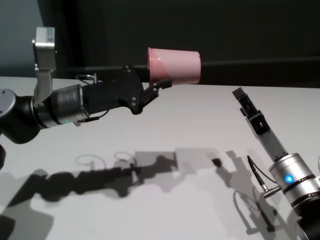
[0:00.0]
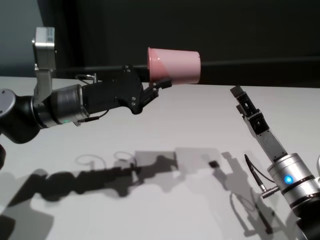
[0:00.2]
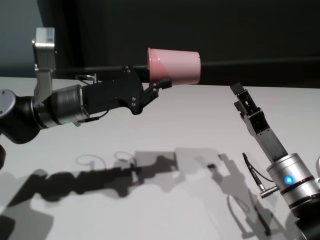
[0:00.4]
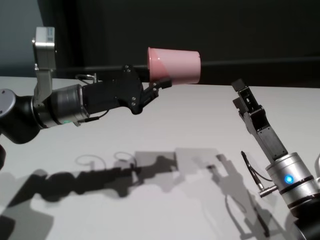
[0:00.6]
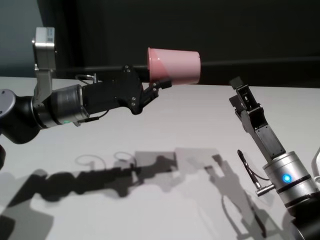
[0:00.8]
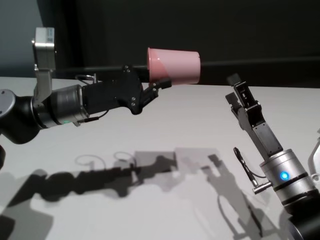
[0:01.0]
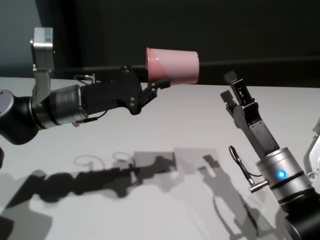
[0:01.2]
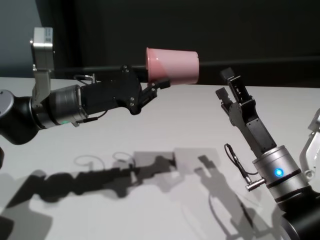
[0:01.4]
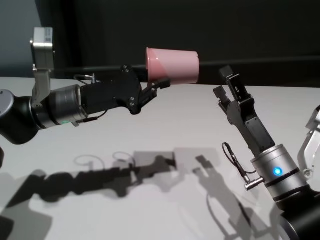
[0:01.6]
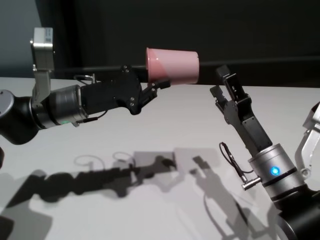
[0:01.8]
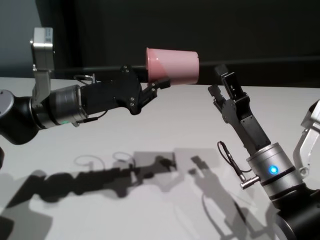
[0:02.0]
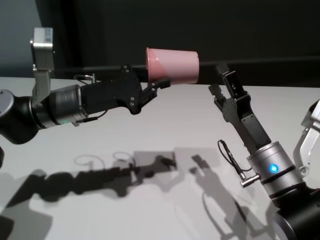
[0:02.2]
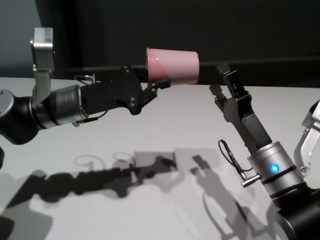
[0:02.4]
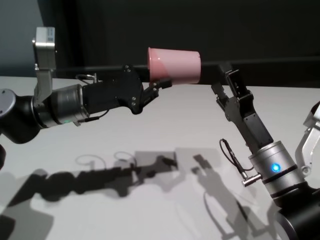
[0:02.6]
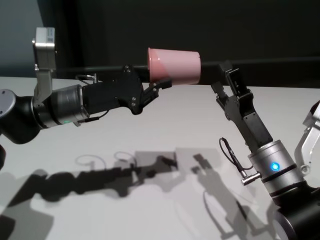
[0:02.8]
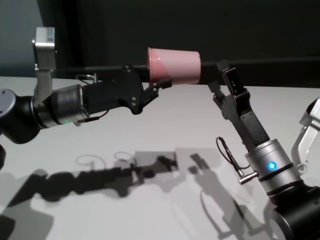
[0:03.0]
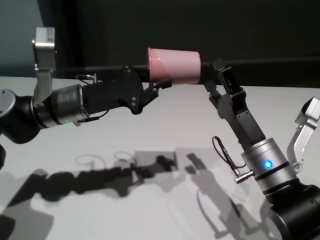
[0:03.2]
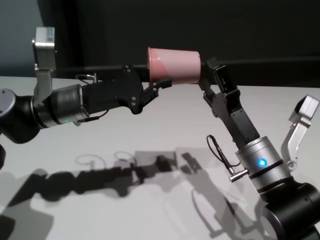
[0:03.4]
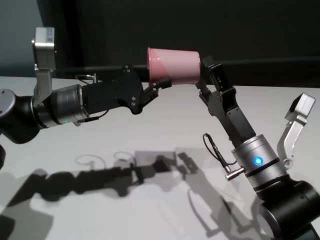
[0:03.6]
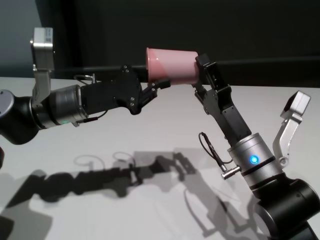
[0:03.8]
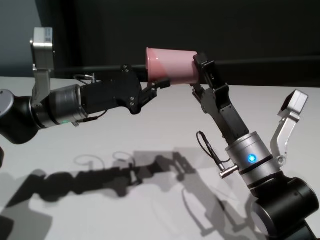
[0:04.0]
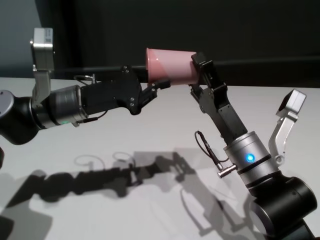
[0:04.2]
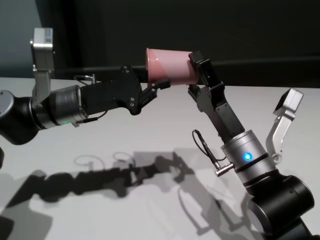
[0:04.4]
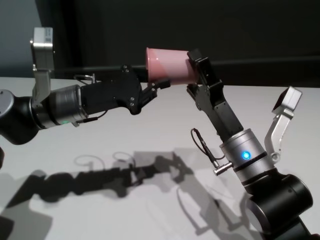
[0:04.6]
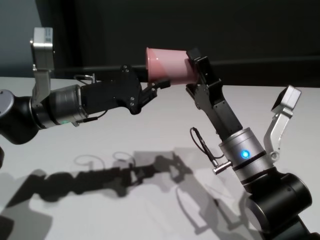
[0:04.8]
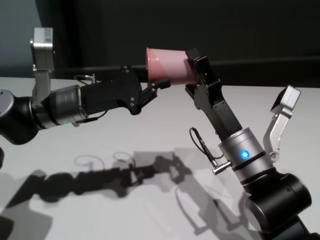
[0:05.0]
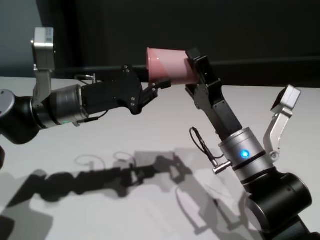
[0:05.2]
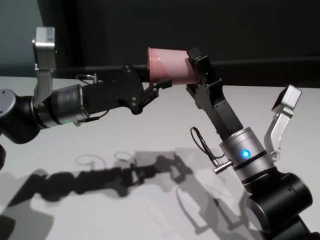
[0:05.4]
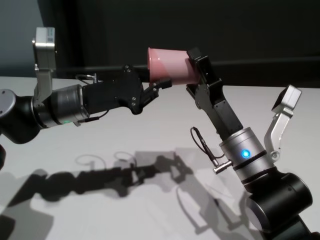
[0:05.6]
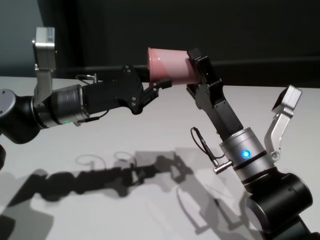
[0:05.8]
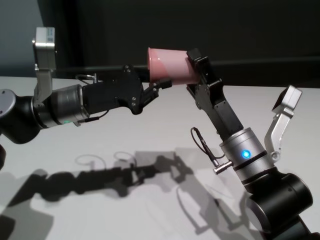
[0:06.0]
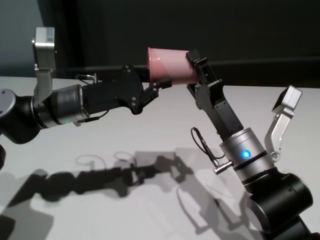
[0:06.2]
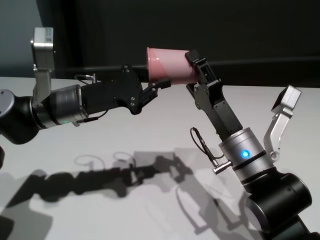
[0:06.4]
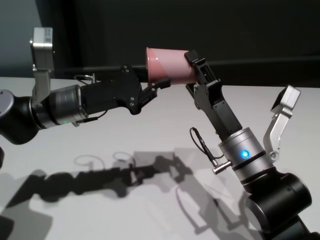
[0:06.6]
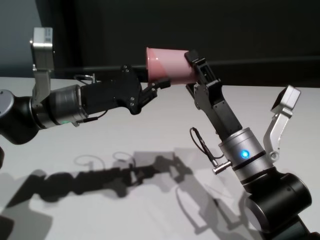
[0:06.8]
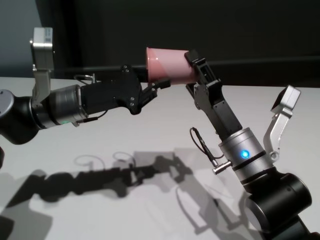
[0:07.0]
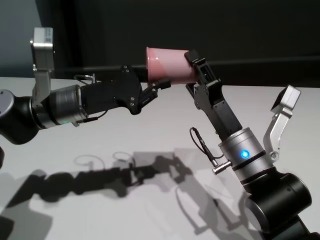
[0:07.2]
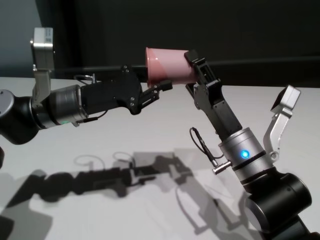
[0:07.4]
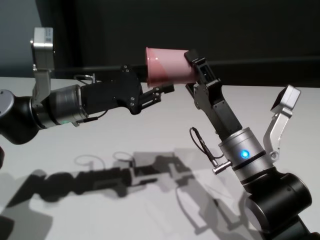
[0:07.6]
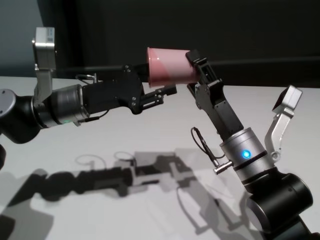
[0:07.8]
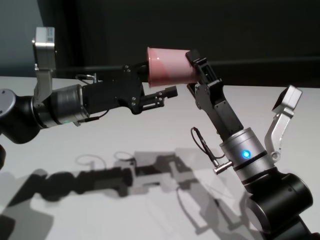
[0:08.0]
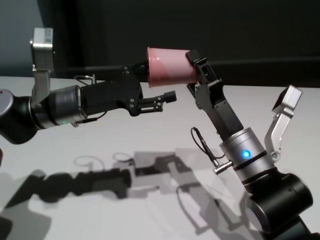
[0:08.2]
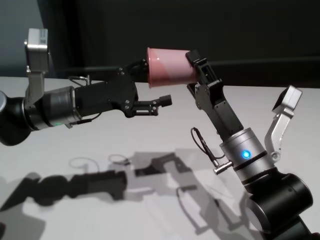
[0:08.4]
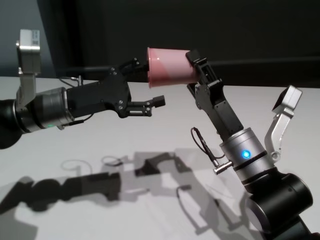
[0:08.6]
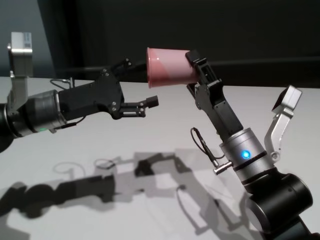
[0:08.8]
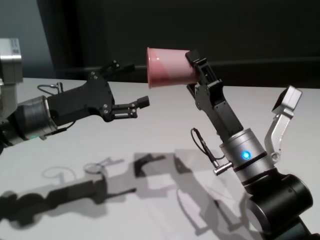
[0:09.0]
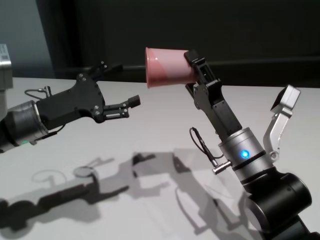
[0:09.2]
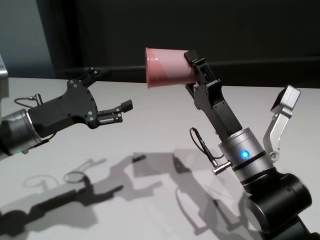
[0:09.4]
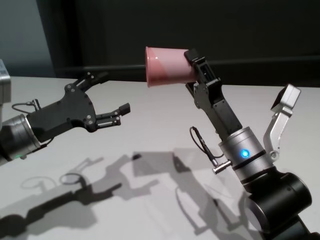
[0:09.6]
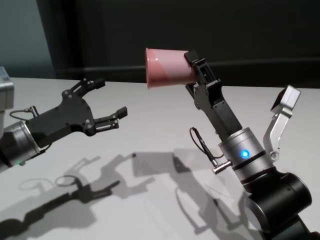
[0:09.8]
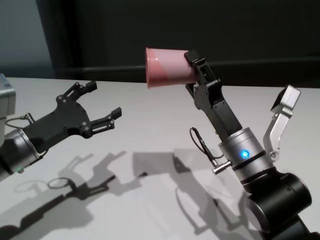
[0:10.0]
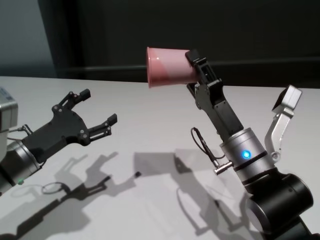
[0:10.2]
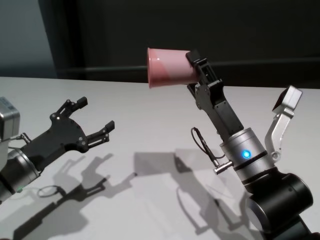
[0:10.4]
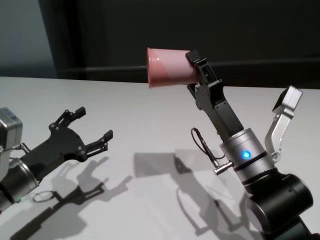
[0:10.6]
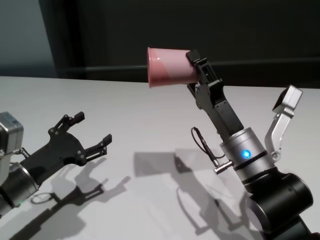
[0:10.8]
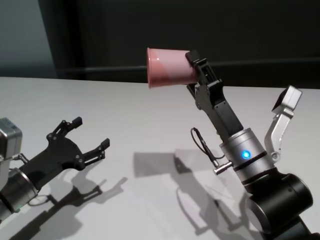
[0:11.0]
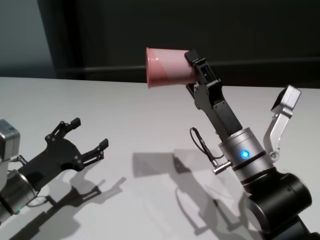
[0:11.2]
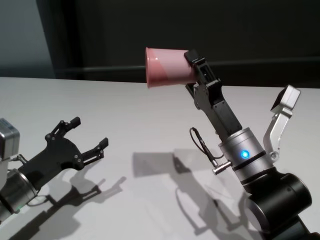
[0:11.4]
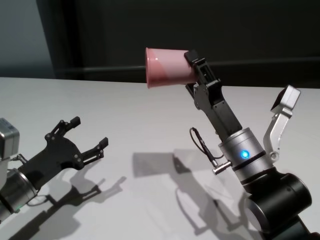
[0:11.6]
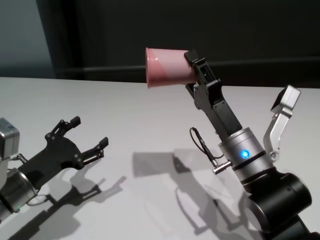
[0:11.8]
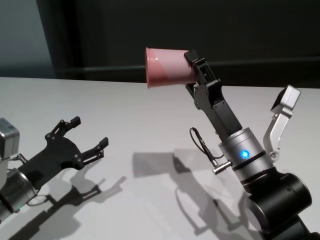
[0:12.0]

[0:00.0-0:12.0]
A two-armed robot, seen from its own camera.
Task of the whole recording: On the white table pick up the cup with one hand and transfer it to the other hand before turning it over.
Step, 0:00.0 to 0:08.8: Pass the cup to the right gripper.

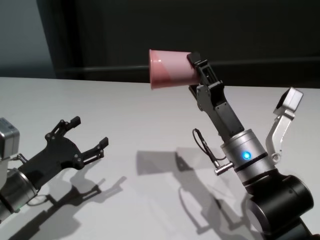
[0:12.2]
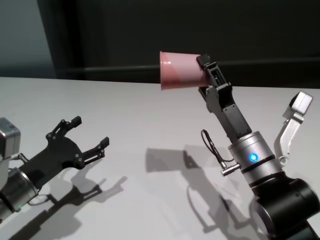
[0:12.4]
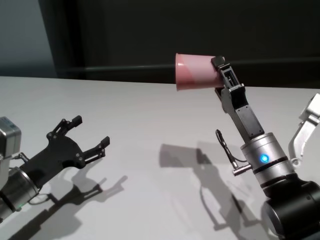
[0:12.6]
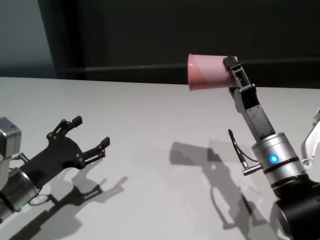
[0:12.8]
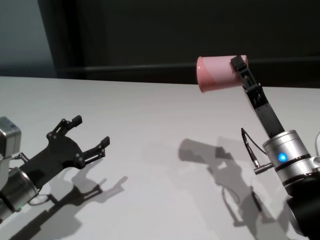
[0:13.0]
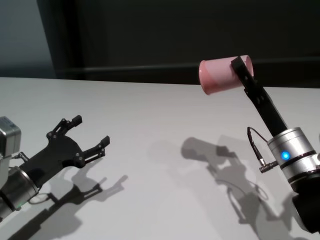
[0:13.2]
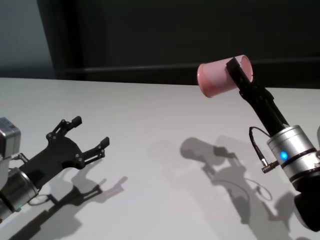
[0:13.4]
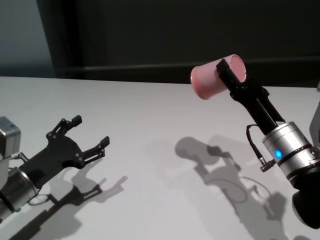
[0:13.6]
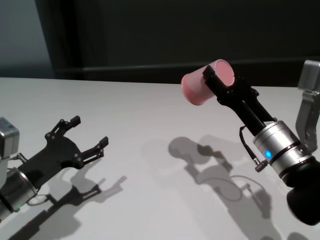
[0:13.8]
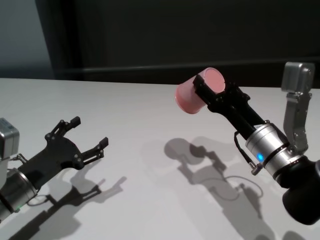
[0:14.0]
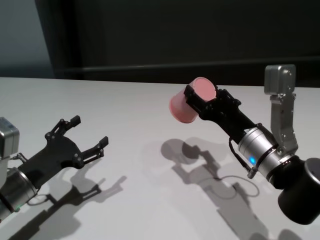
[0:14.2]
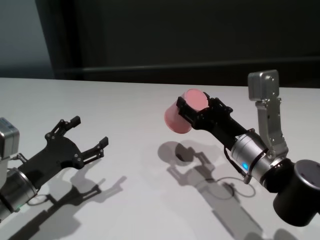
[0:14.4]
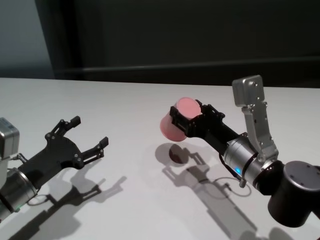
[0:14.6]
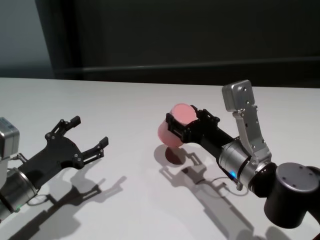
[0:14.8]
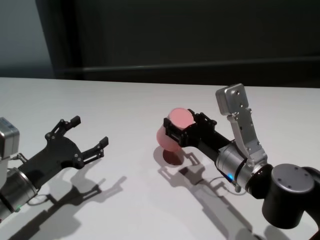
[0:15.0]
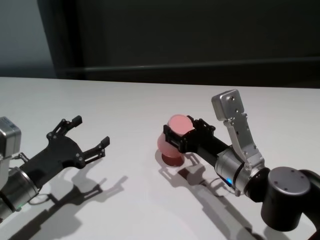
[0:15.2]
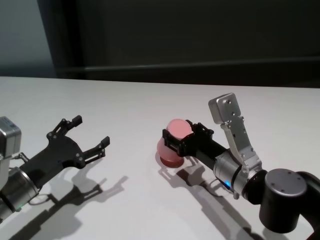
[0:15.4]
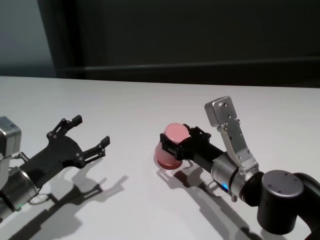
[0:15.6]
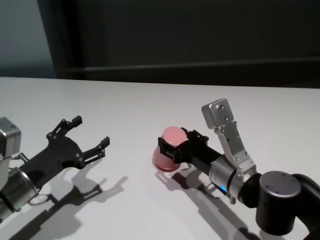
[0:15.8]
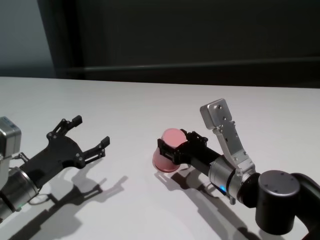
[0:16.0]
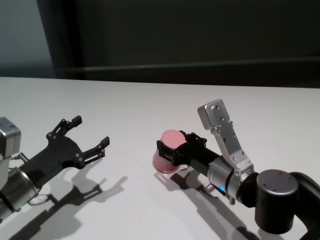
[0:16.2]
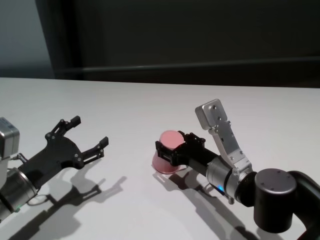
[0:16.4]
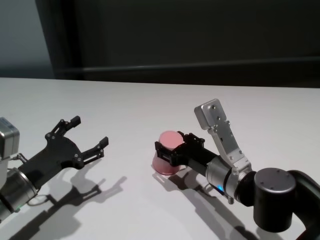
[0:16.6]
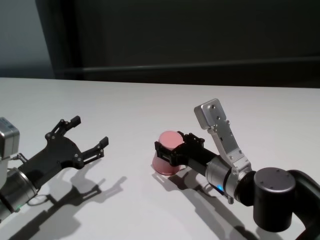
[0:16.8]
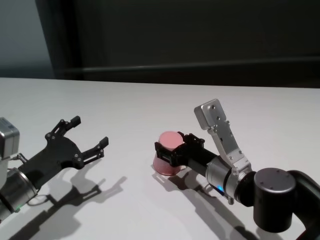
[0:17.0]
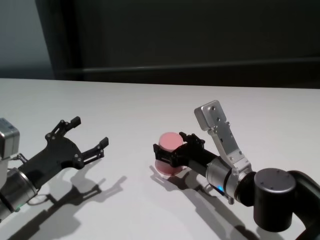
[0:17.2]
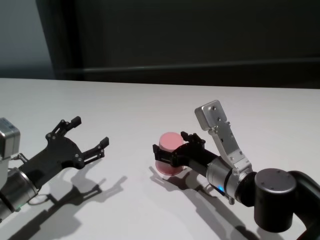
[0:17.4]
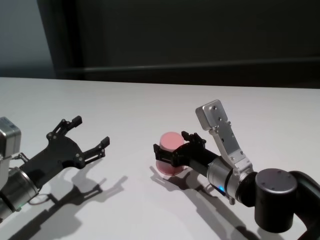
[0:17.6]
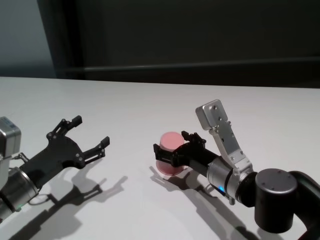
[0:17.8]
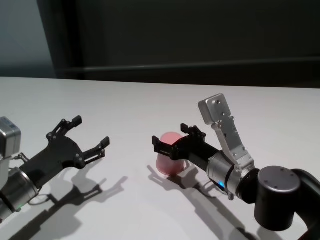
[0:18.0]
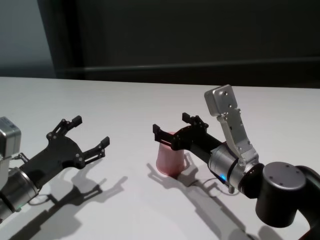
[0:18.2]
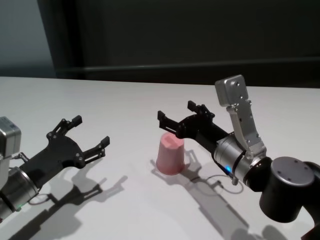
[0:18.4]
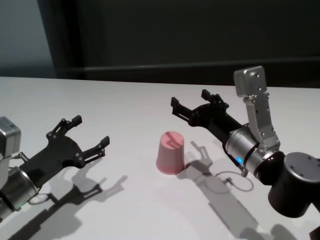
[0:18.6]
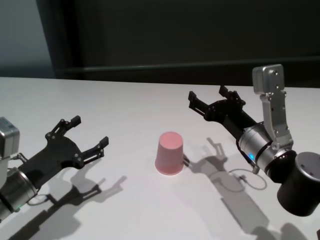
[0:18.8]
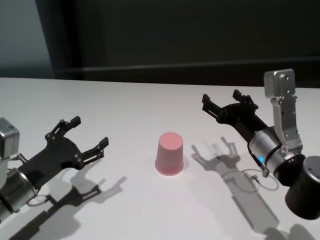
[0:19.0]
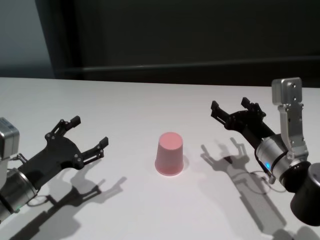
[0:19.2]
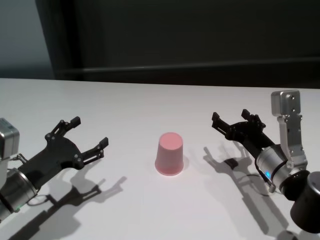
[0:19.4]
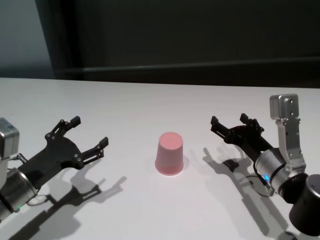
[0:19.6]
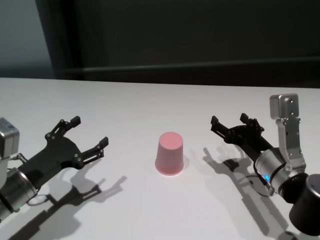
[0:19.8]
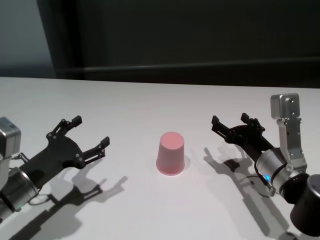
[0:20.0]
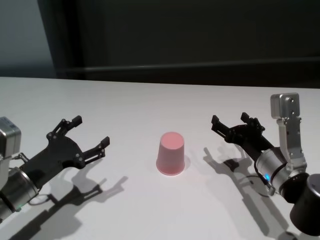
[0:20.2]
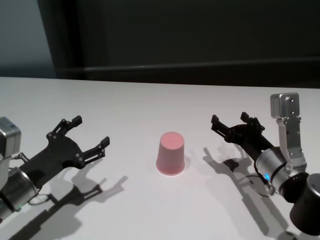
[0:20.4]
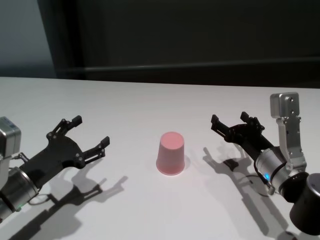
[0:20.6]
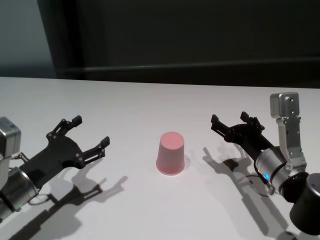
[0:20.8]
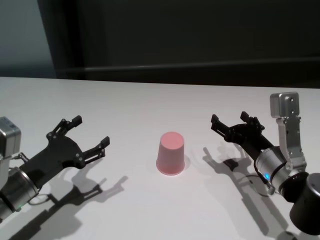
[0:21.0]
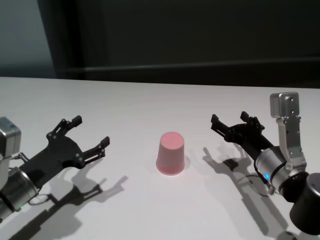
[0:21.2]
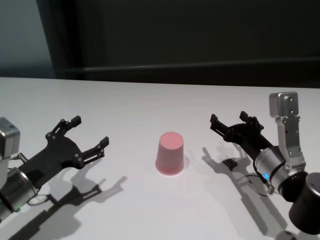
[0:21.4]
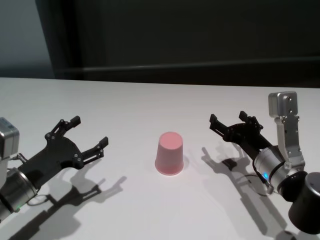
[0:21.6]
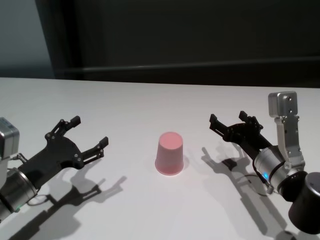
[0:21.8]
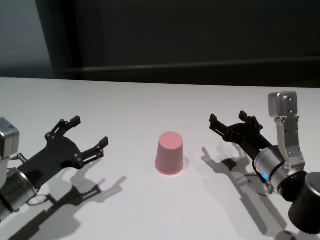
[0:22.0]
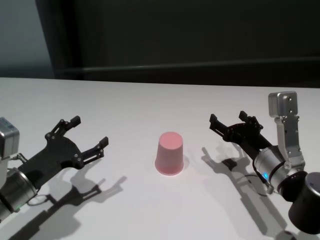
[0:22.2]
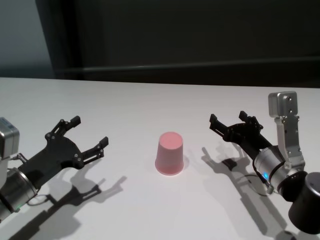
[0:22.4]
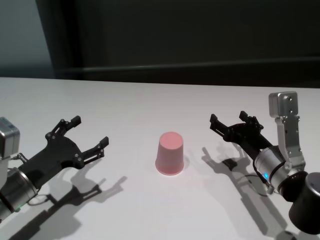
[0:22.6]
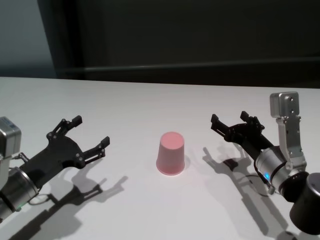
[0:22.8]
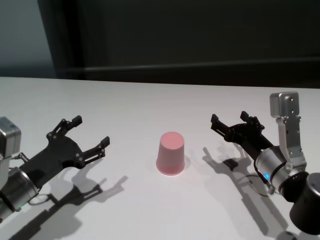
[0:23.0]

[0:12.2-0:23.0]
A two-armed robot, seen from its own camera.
Task of the whole recording: On the white table pick up the cup with one hand and transfer it to the other hand before turning it over.
Step, 0:12.2 to 0:17.6: Place the cup on the table with right gripper.
